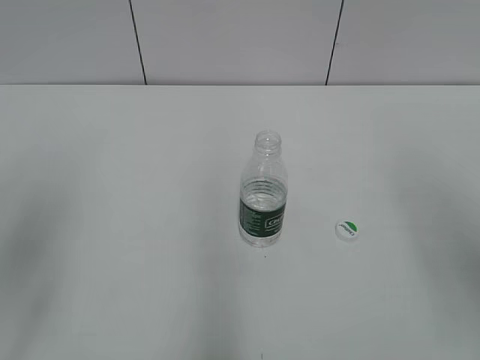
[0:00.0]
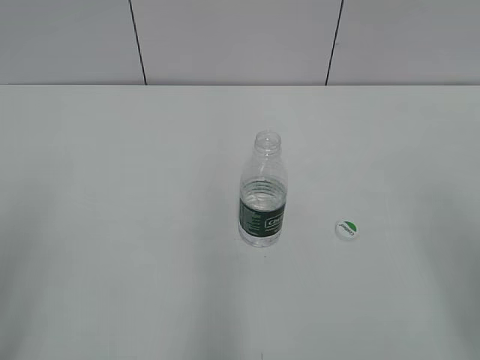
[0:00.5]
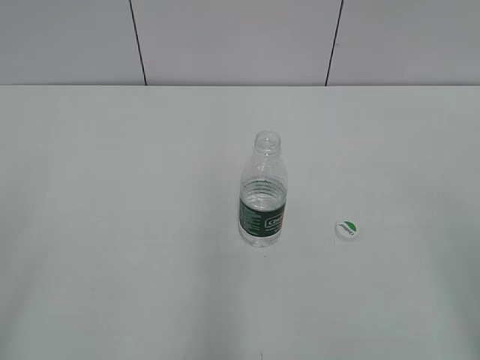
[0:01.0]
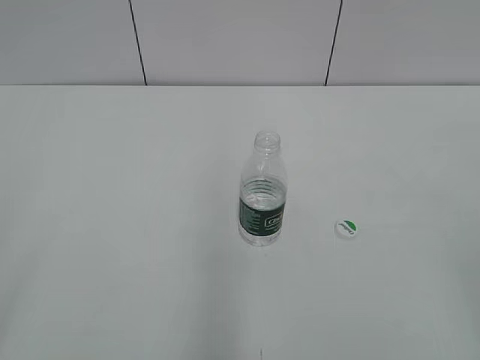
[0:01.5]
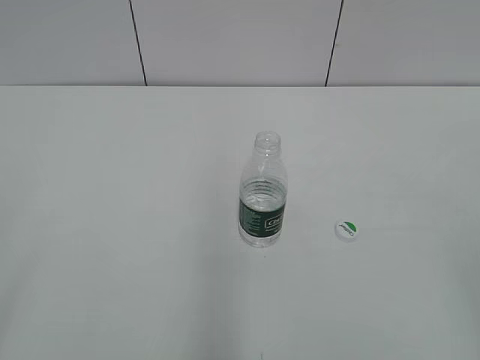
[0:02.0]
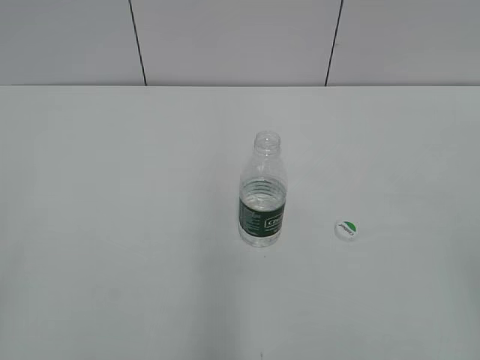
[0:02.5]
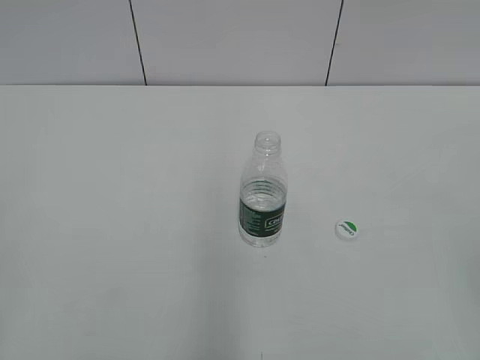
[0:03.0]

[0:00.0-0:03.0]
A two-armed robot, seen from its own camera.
0:00.0 to 0:01.5: The left gripper heads backward, covering about 20 cm.
